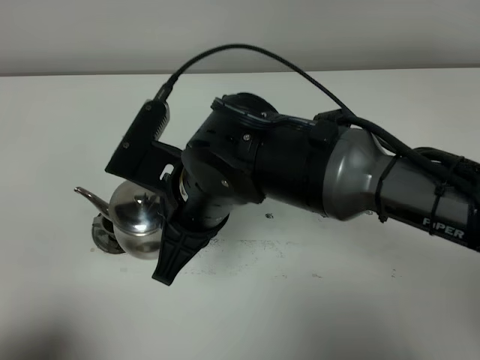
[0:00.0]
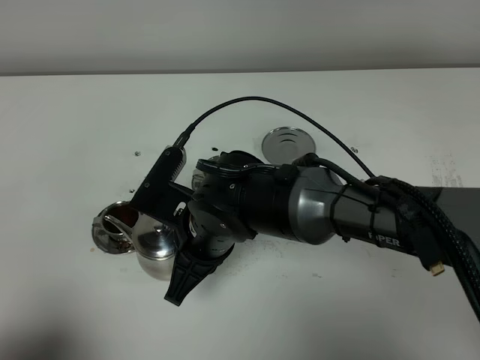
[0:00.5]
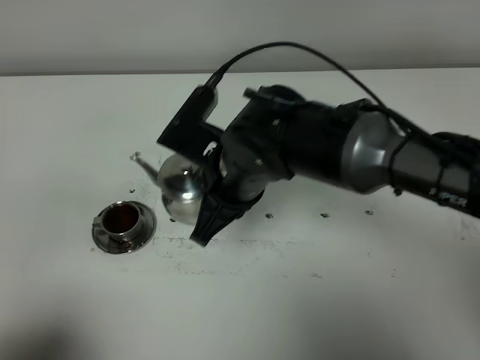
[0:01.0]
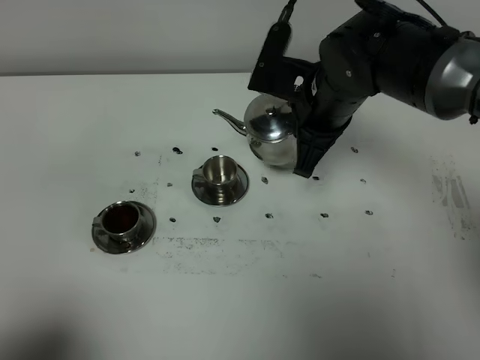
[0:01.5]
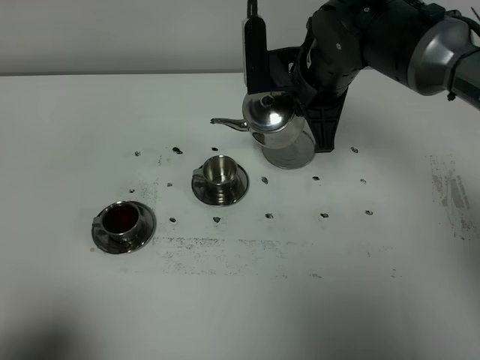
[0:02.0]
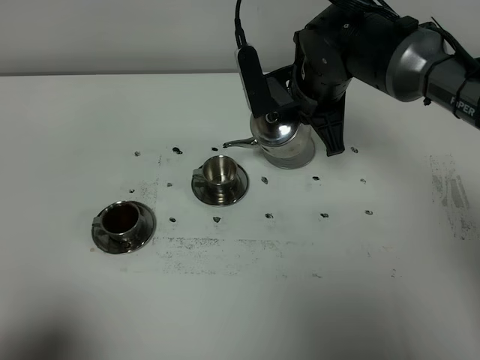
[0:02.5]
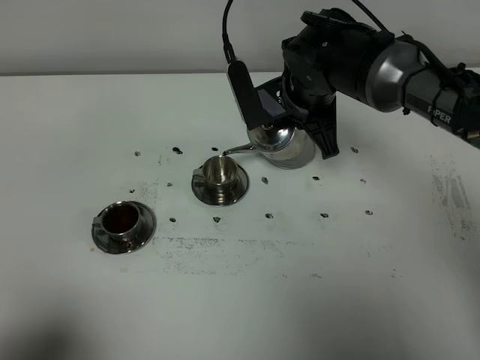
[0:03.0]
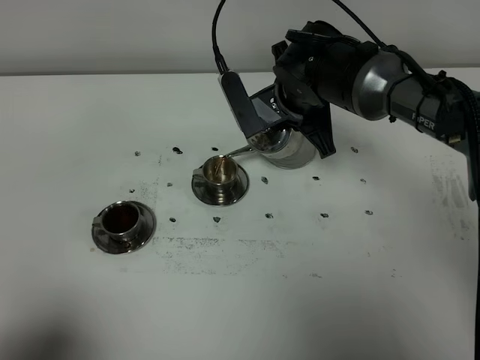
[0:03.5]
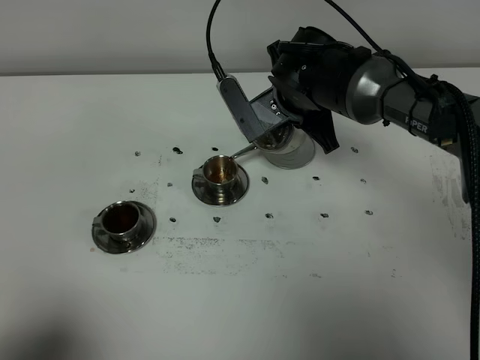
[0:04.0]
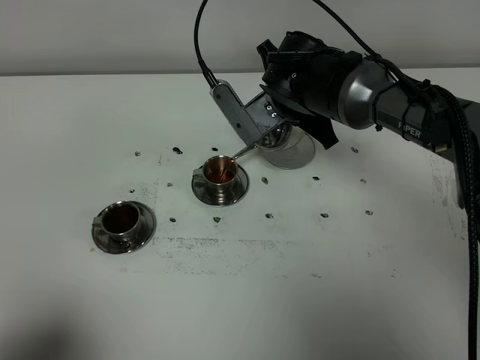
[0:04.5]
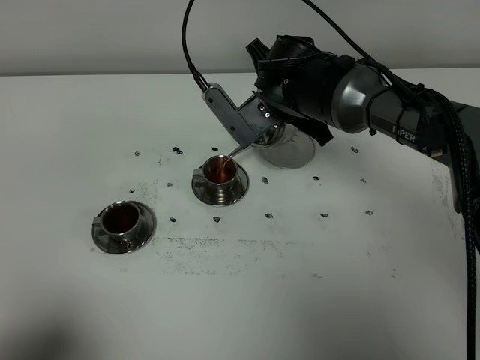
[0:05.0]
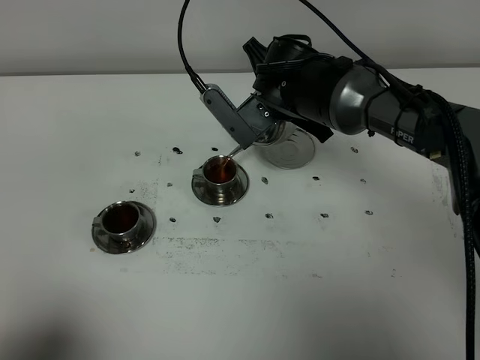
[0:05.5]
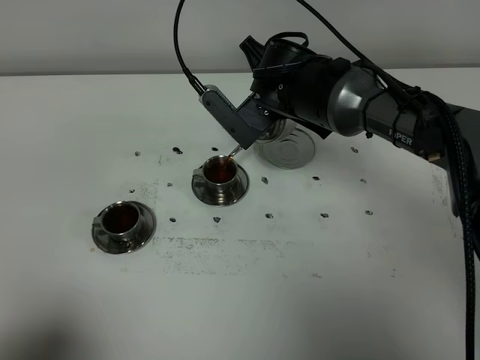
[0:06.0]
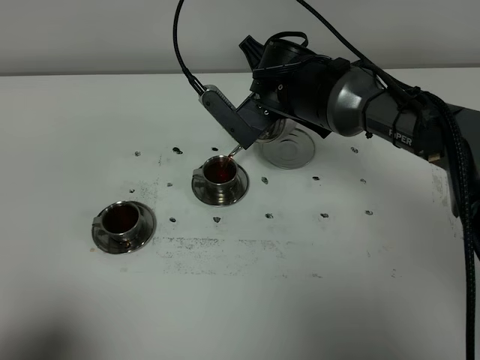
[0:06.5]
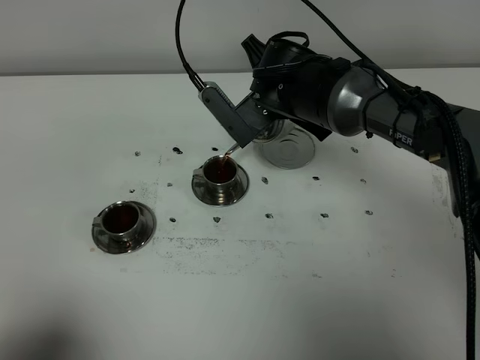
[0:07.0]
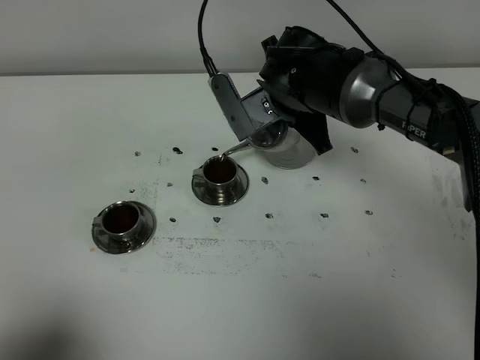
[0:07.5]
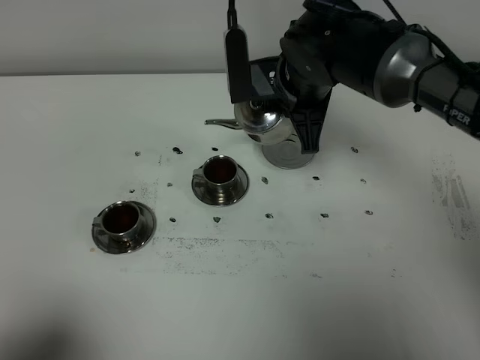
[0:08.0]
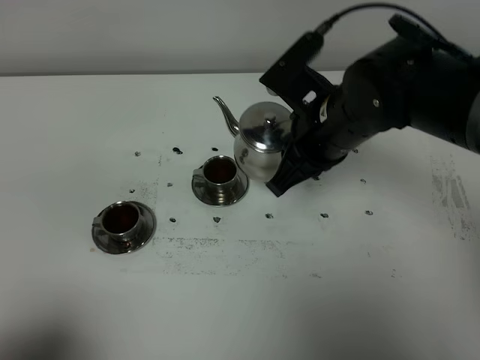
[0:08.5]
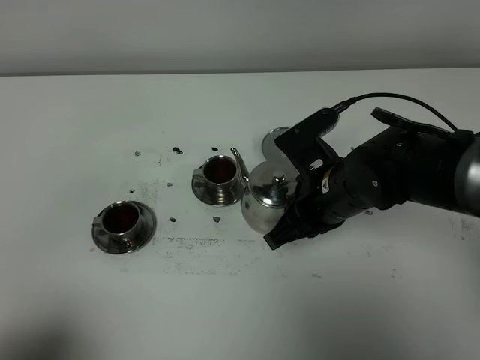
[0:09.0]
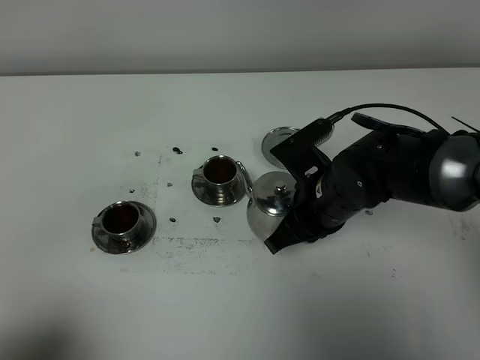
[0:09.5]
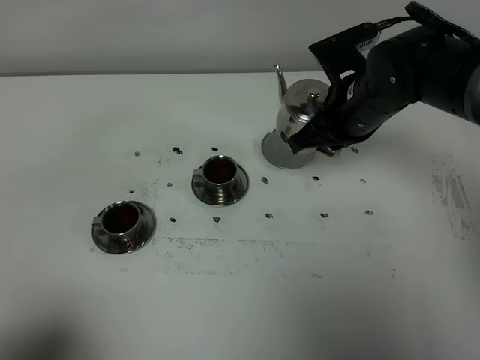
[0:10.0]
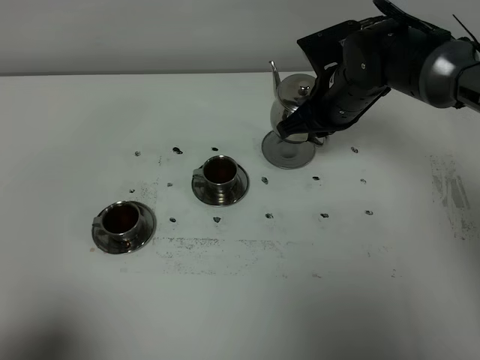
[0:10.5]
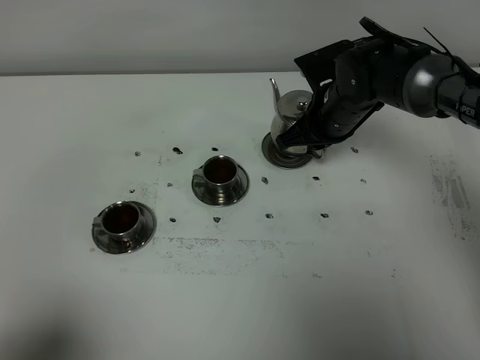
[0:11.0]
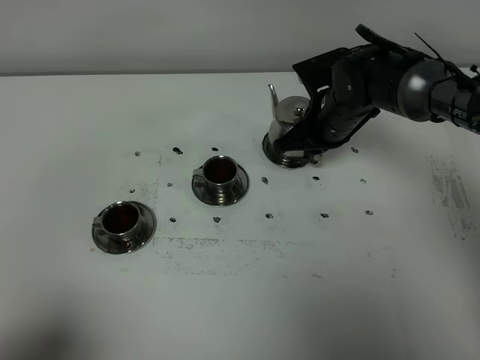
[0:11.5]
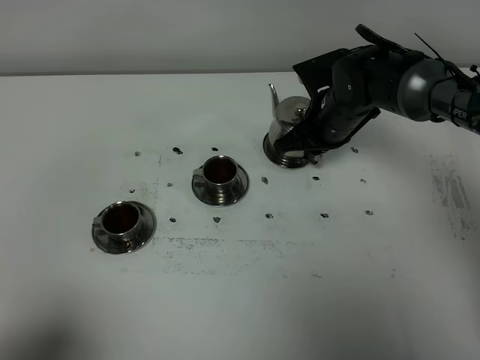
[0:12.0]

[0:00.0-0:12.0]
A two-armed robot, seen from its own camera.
Task of the whole recording: grasp the stainless steel teapot and pour the tea into the two stainless steel teacups one by one, put the stainless steel teapot back in its original place.
Step, 0:00.0 to 0:07.5: Pour tea into the teacup with the right gripper.
0:00.0 to 0:02.0: The right gripper heads forward and to the right, covering some 20 cm.
0:02.0 to 0:04.0: The right gripper heads downward, covering roughly 5 cm.
0:04.0 to 0:06.0: The grippers make only small movements.
0:08.0 to 0:10.0: The right gripper shifts roughly 5 cm to the right, and moves some 10 cm backward and comes back.
0:10.0 to 0:12.0: The right gripper moves downward and forward, about 10 cm.

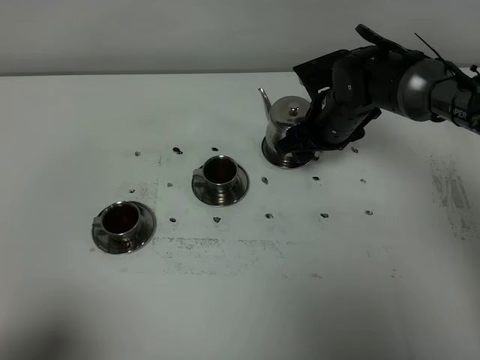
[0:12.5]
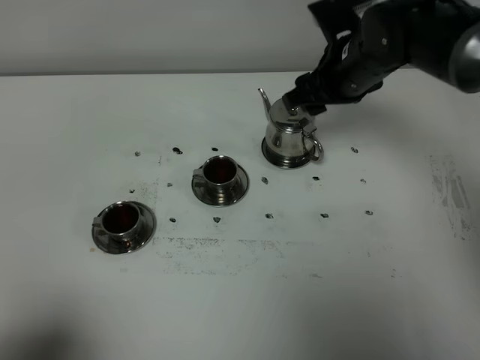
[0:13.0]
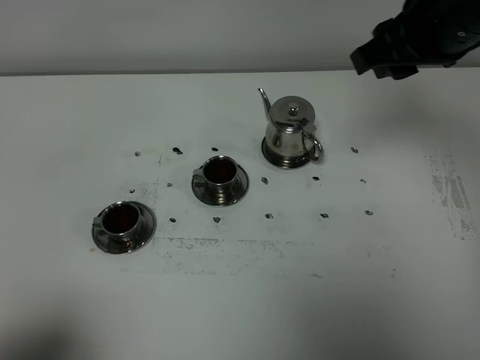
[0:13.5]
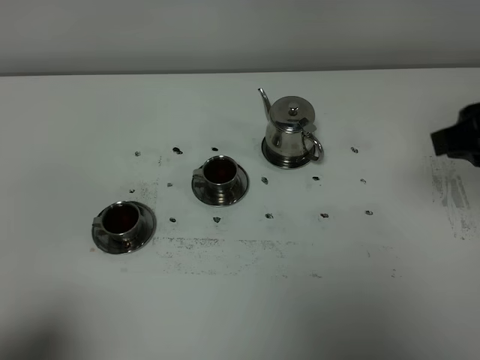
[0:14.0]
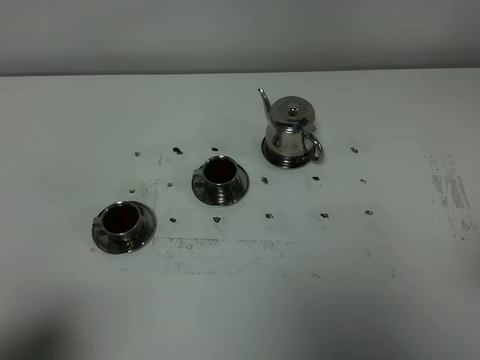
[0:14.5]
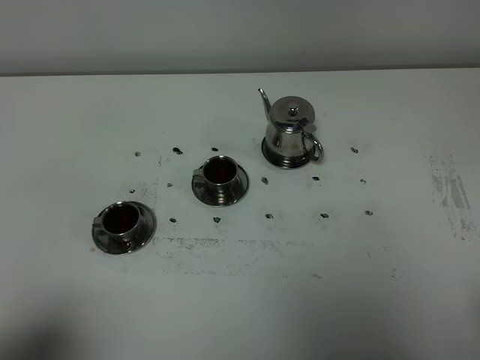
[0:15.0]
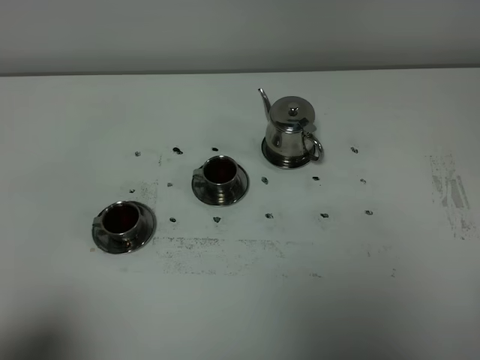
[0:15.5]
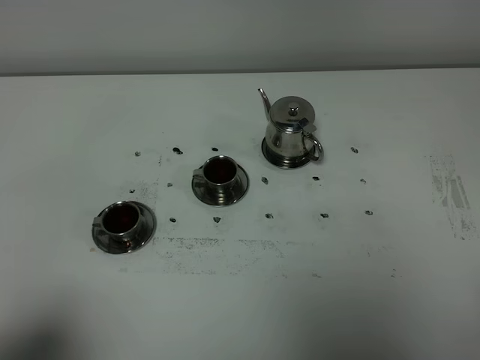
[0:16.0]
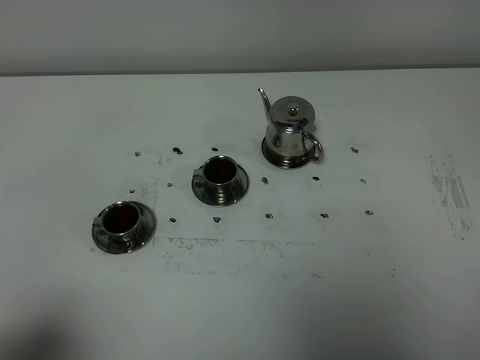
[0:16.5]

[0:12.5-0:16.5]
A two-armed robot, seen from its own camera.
Task of the whole recording: grasp the stainless steel teapot and pour the tea into the two stainless steel teacups one by one, put the stainless steel teapot back in its original place.
0:12.5 to 0:14.5: The right gripper moves backward, upward and to the right, approximately 40 cm, and closes its fingers.
